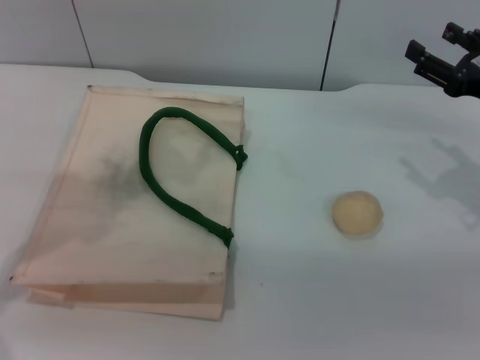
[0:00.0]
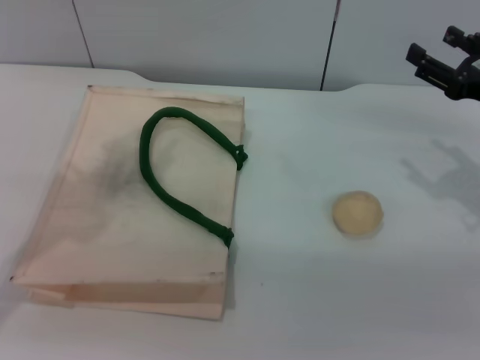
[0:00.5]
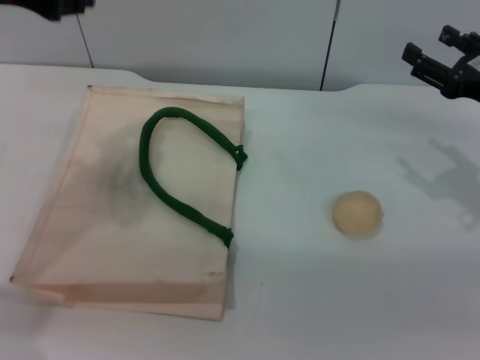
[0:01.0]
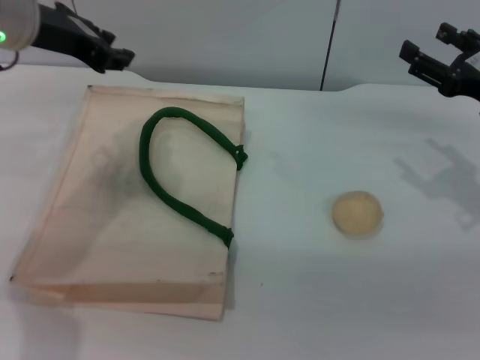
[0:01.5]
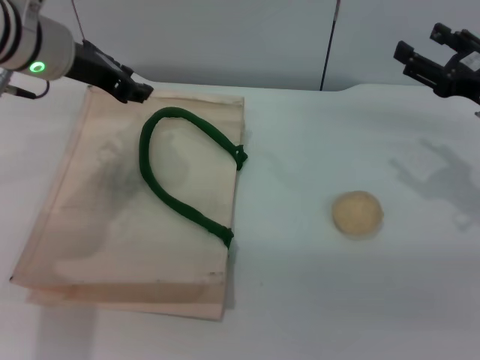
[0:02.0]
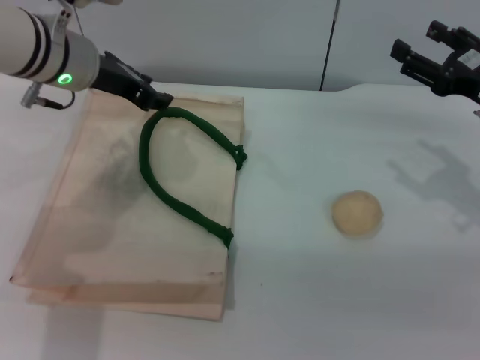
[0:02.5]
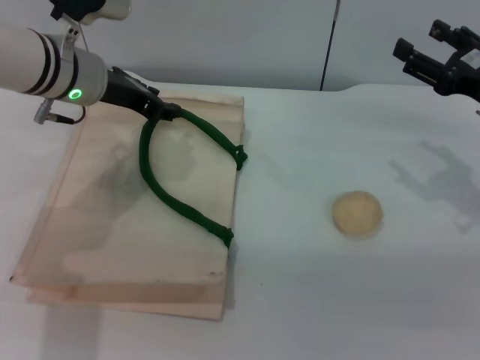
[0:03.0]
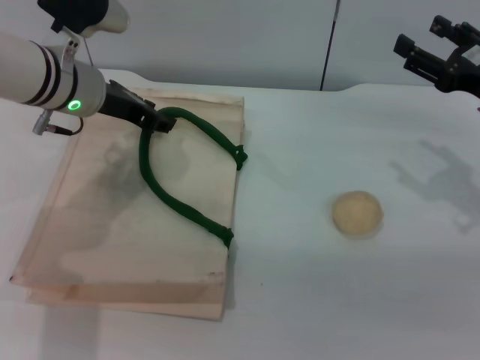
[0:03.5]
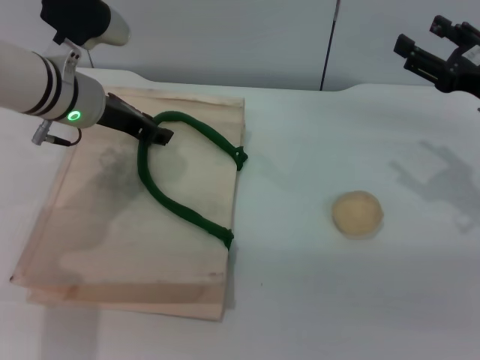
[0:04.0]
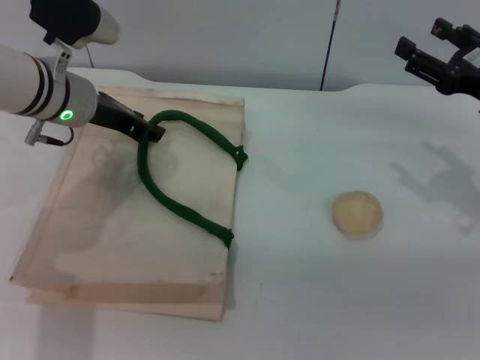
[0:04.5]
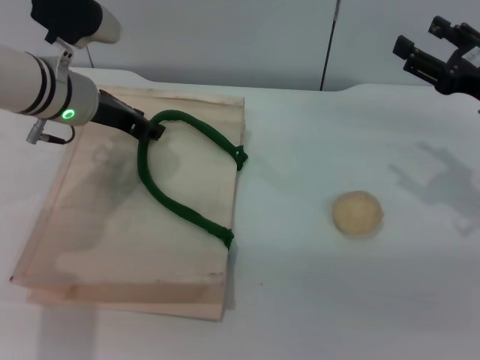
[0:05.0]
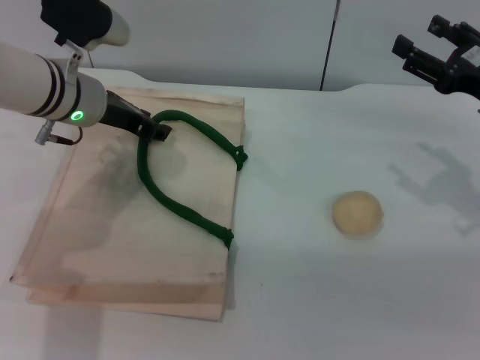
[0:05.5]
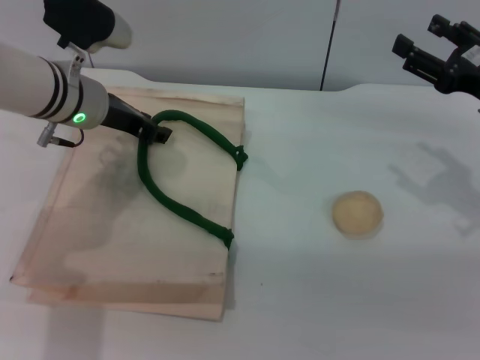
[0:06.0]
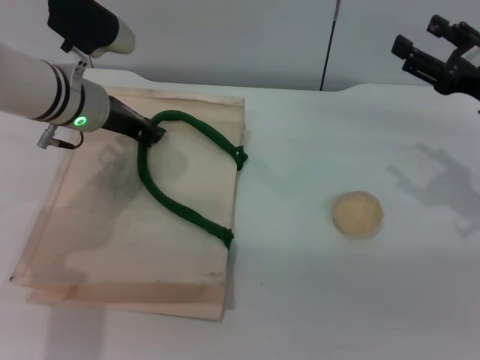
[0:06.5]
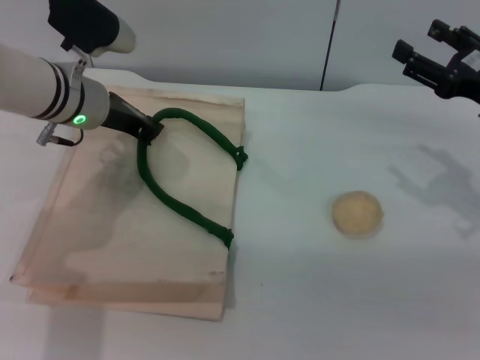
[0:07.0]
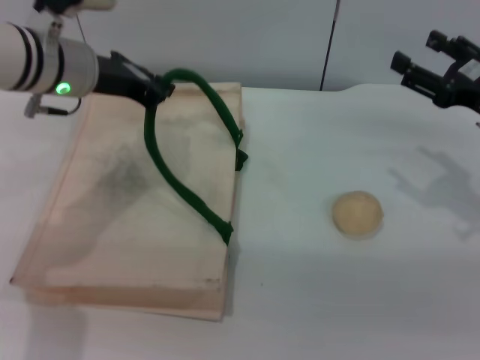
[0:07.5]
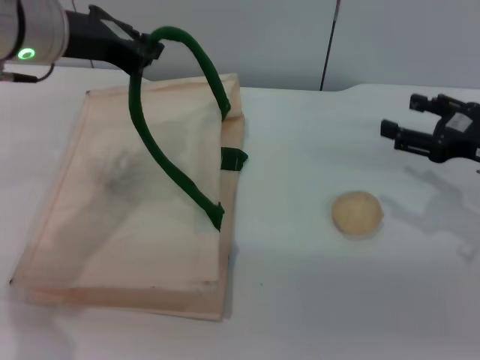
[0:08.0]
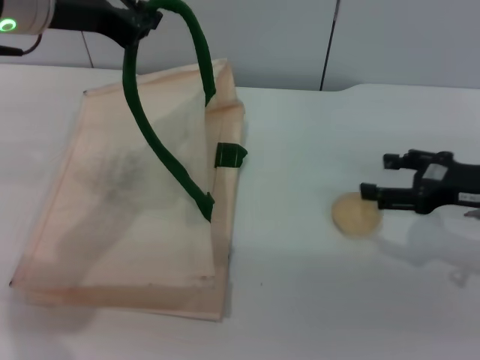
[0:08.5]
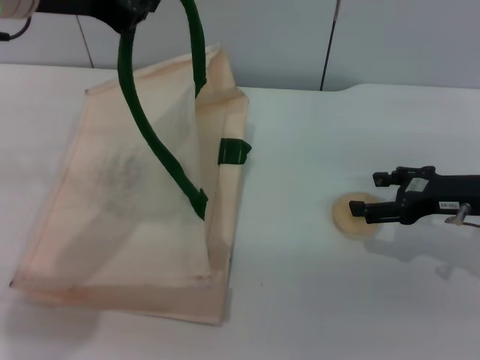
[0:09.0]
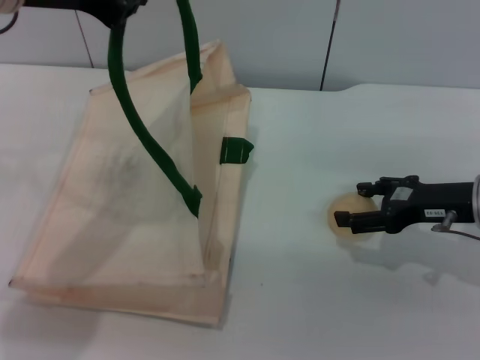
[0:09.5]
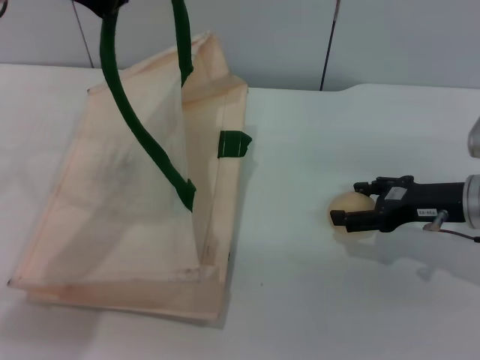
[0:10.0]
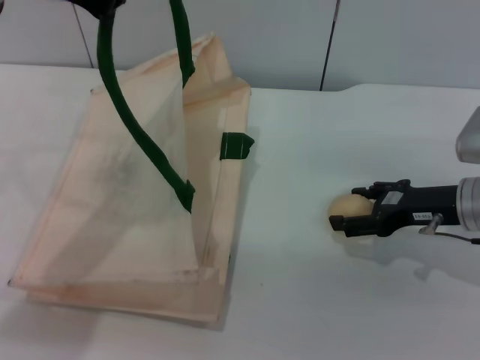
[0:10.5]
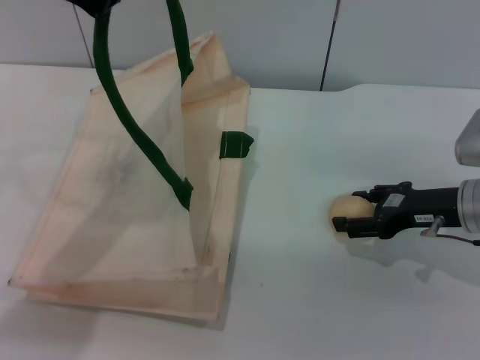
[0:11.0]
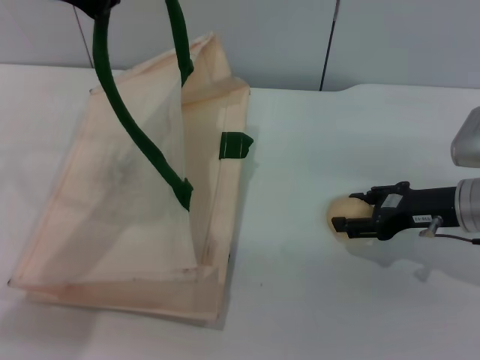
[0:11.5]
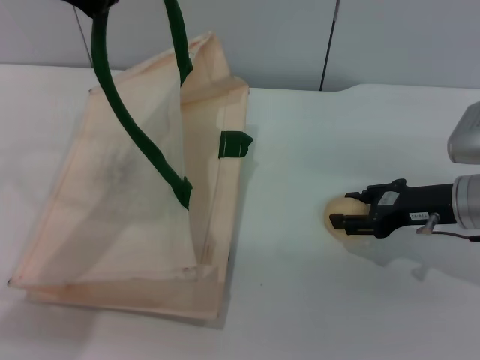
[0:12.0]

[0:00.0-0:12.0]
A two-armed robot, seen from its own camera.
Task of the whole recording: pick up the egg yolk pastry from the table and place it in the white handbag.
Step, 0:00.0 to 0:07.5: Lift the woven bag with the left gripper to open it.
0:00.0 to 0:02.0: The left gripper heads downward and forward, covering approximately 10 cm.
0:02.0 to 0:04.0: The left gripper moves downward, roughly 5 cm.
0:04.0 to 0:06.0: The two grippers keep their place.
0:06.0 to 0:08.0: The left gripper travels upward by approximately 10 cm, and closes its fingers.
0:08.0 to 0:10.0: The left gripper is displaced upward by roughly 5 cm. Meanwhile the right gripper ends up approximately 5 cm from where it was.
0:10.0 to 0:12.0: The right gripper closes.

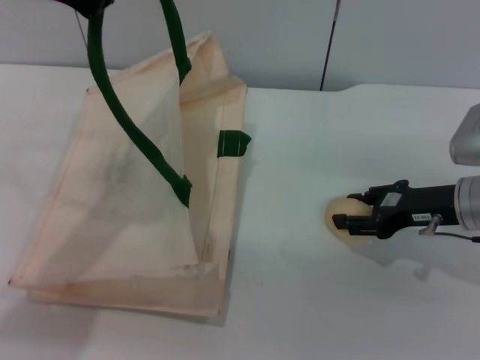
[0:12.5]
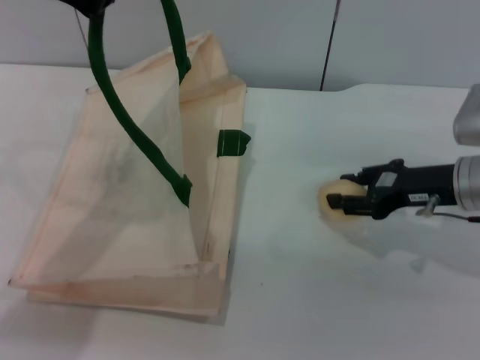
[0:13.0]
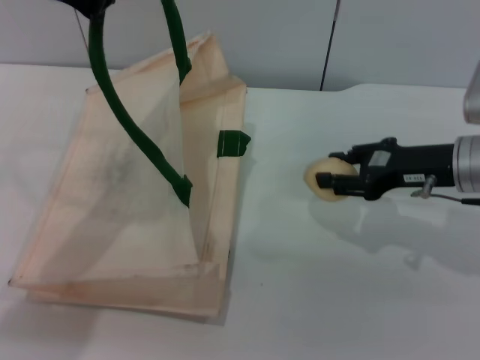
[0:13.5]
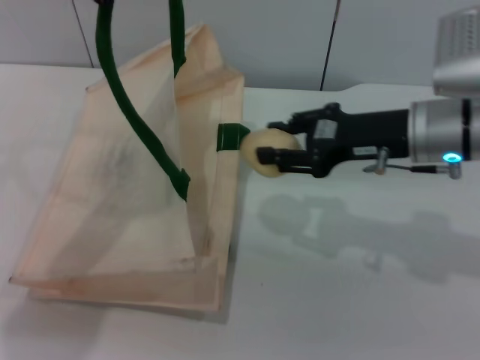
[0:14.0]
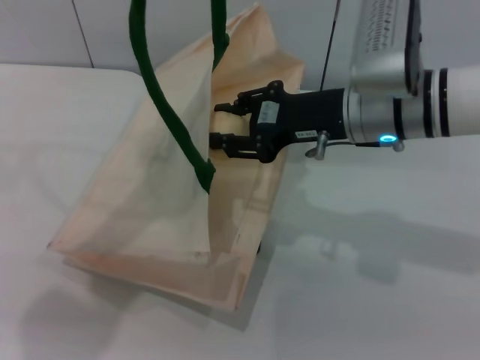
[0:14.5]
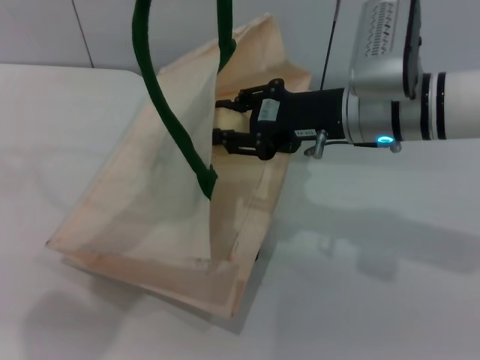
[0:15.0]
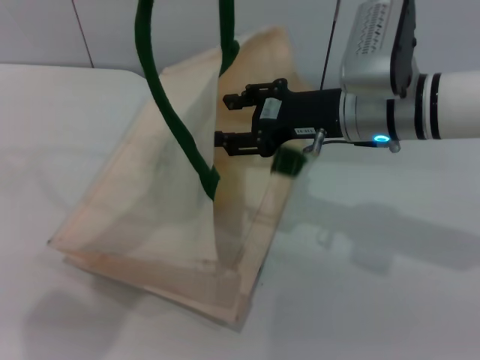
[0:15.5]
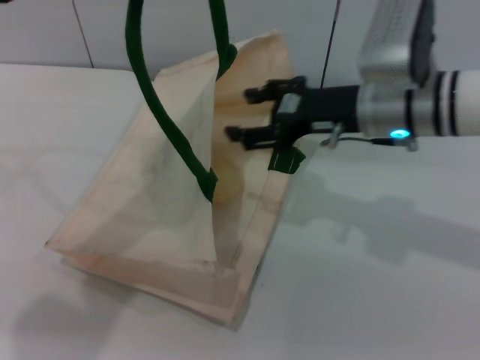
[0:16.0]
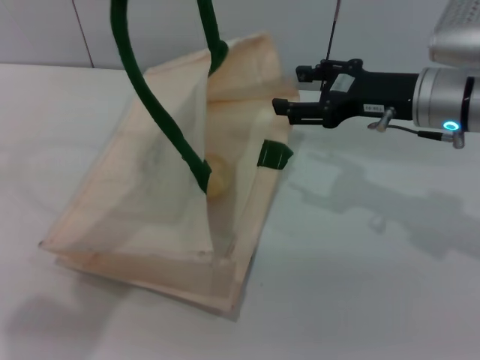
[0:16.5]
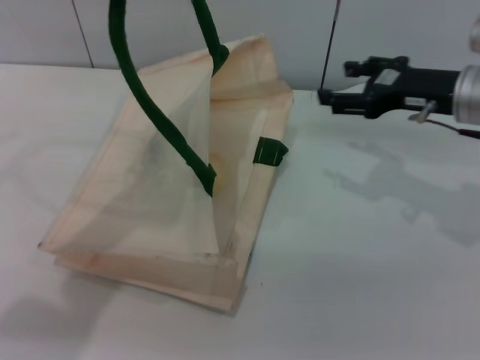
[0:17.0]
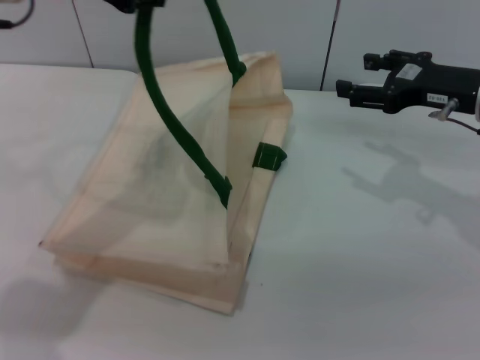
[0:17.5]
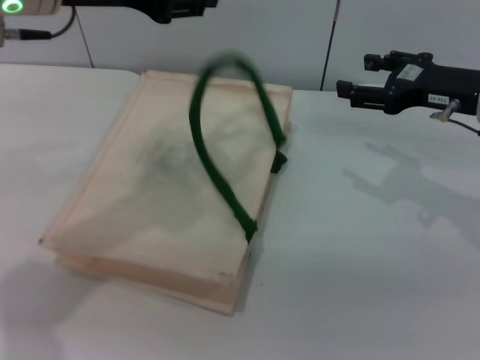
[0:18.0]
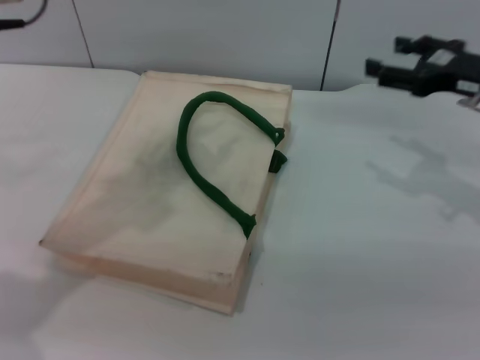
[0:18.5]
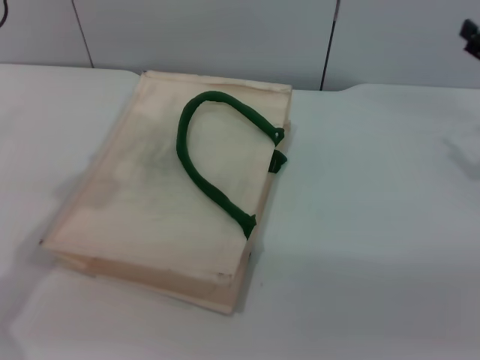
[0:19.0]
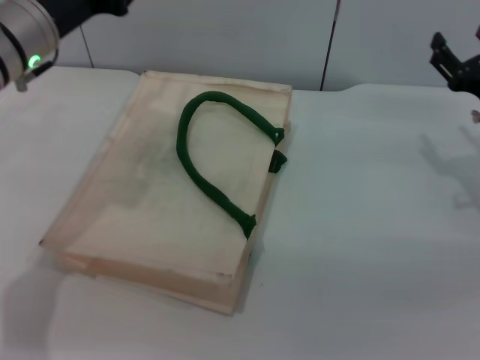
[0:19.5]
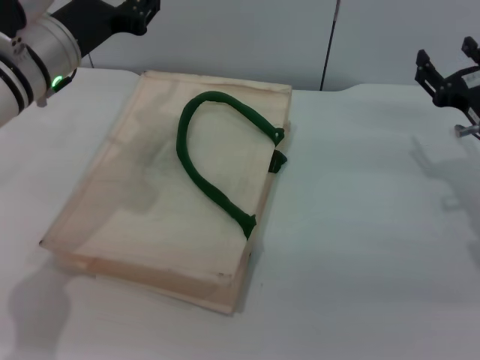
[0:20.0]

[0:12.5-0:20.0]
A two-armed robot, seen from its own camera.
Task of the whole recording: pick up the egg yolk pastry from the table and place it in the white handbag.
Step, 0:13.5 to 0:15.5: Place the egg yolk pastry into the woven bag with the right gripper.
Step, 0:16.0 to 0:18.0: Lower the woven bag with the left gripper to close it.
0:12.5 to 0:14.5: The right gripper travels to the left and upward by approximately 15 cm.
0:14.5 to 0:16.5: The right gripper goes about 5 cm to the right, and opens up.
0:16.5 to 0:18.0: The right gripper moves to the right, some 5 cm. The left gripper shifts by approximately 5 cm, and opens.
0:18.0 to 0:20.0: The right gripper shifts about 5 cm downward. Meanwhile the left gripper travels downward by some 10 cm.

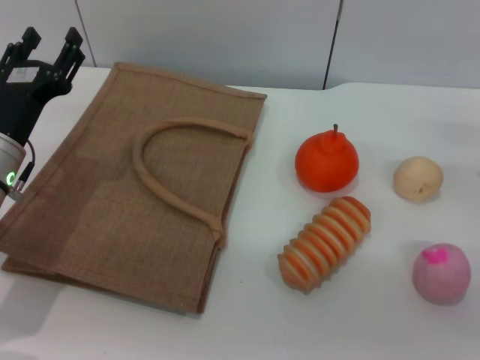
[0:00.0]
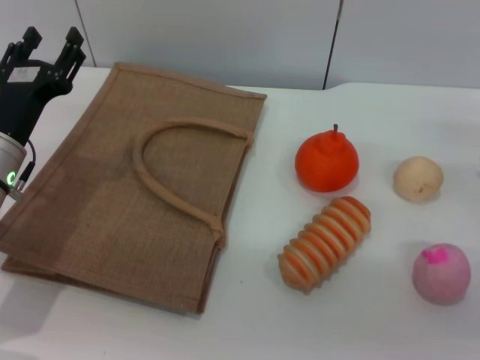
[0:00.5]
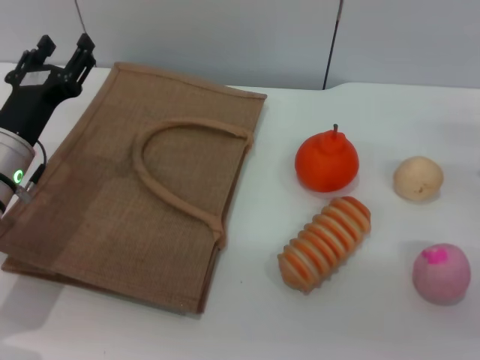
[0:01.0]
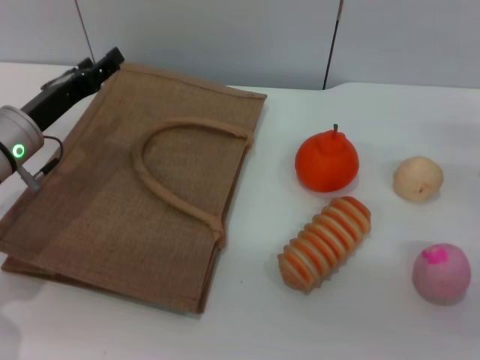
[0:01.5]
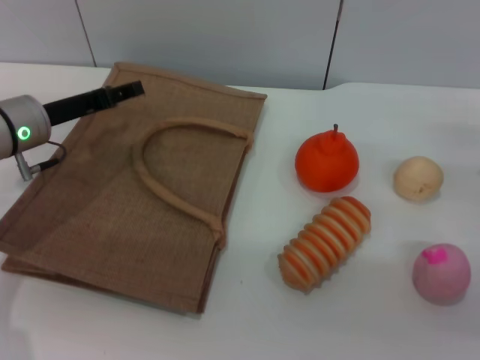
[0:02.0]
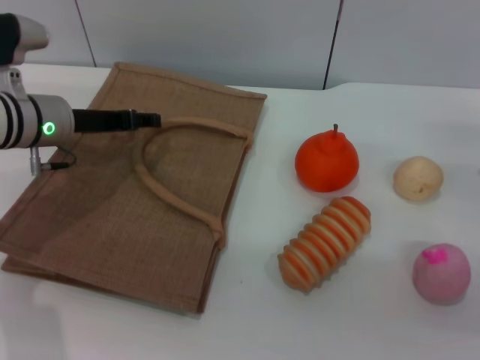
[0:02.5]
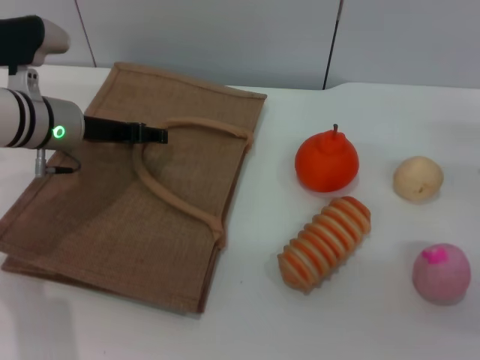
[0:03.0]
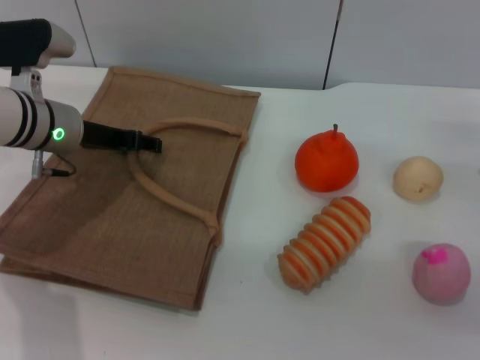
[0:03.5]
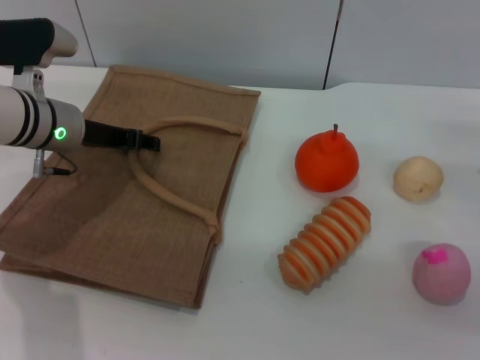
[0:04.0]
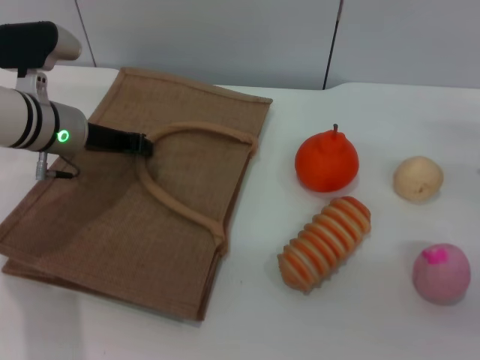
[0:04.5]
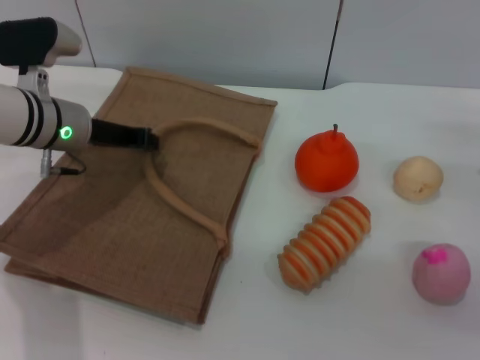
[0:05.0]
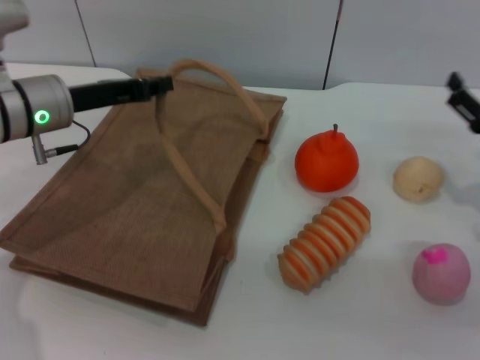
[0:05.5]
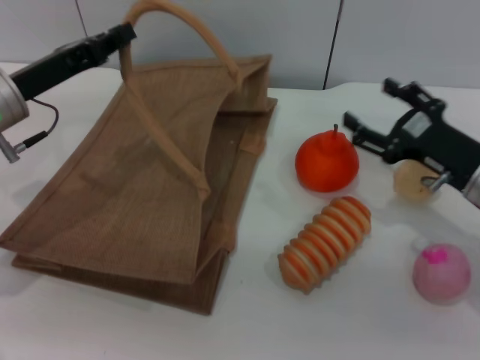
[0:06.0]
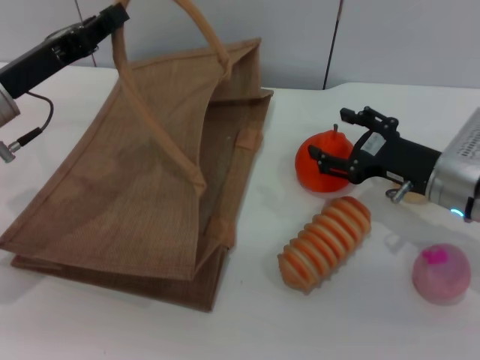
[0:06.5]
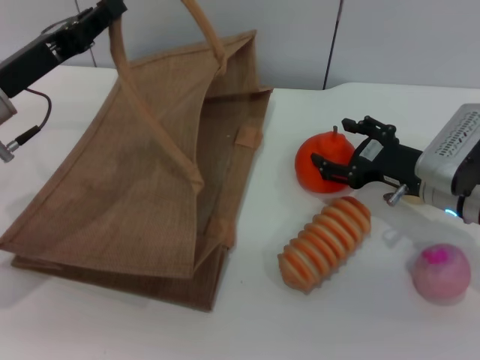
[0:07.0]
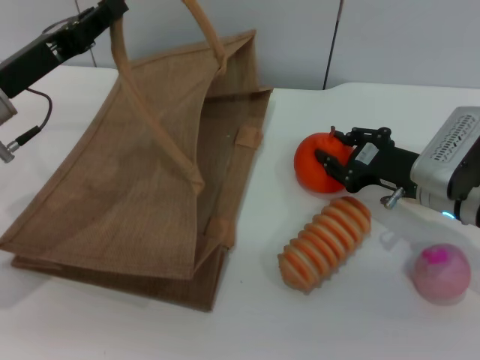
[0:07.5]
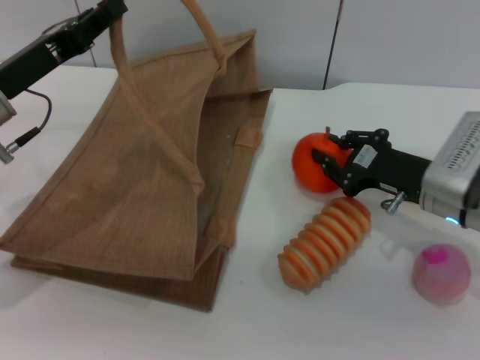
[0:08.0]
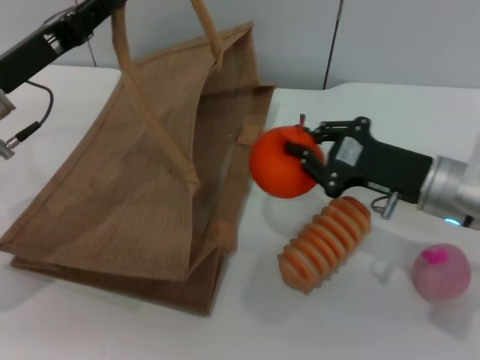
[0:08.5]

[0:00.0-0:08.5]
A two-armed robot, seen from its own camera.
Task of the whole recording: pick up the orange from the table and place it in the brown handbag.
Step, 0:00.0 to 0:05.0: Lift the woven bag with the left gripper to open it.
Step, 0:05.5 to 0:08.0: Pick up the orange with the right gripper.
0:00.0 to 0:02.0: The left gripper is displaced forward by some 5 cm.
0:04.0 to 0:06.5: The right gripper travels to the left by about 10 cm; the left gripper shifts some 5 cm backward, and closes up.
0:06.5 to 0:08.5: The right gripper closes.
